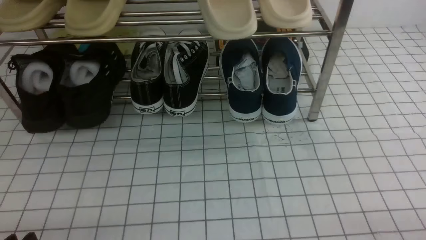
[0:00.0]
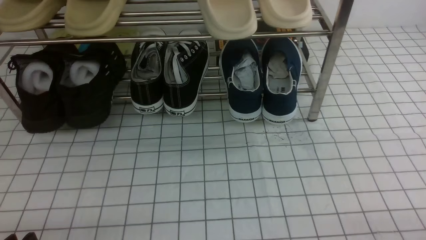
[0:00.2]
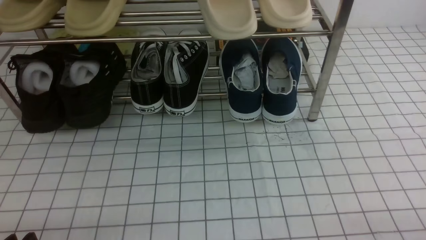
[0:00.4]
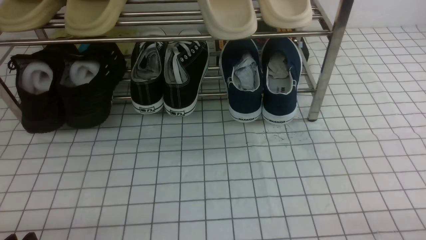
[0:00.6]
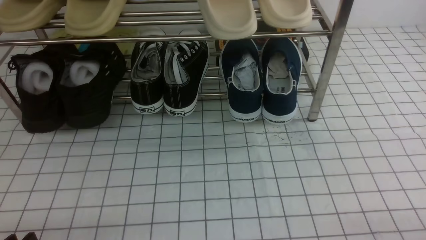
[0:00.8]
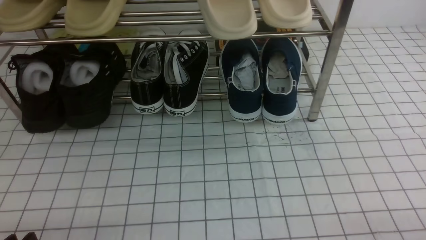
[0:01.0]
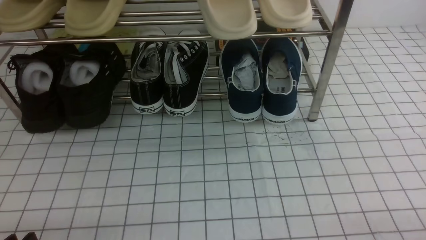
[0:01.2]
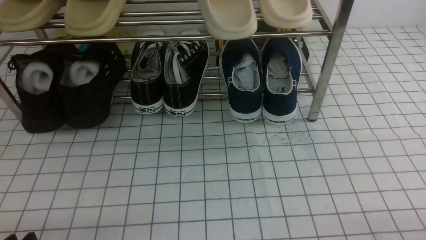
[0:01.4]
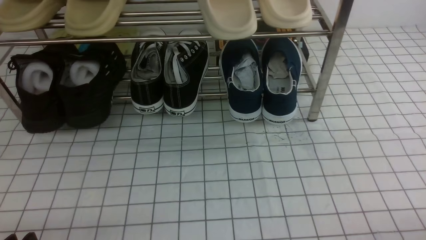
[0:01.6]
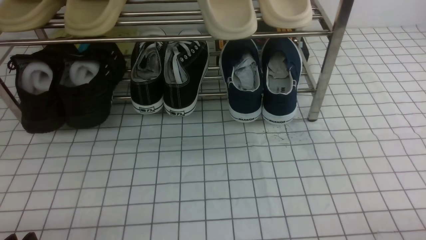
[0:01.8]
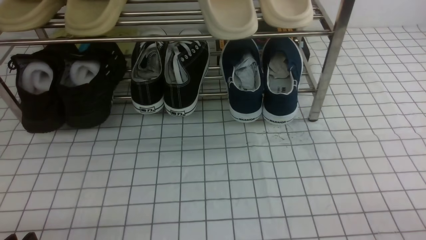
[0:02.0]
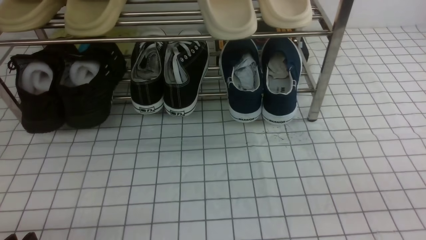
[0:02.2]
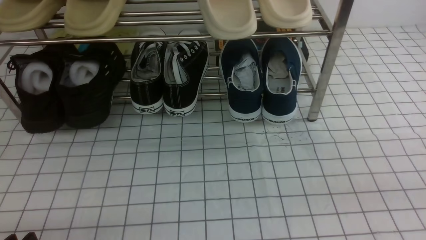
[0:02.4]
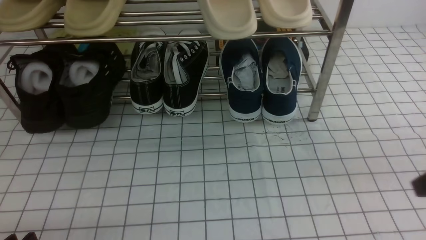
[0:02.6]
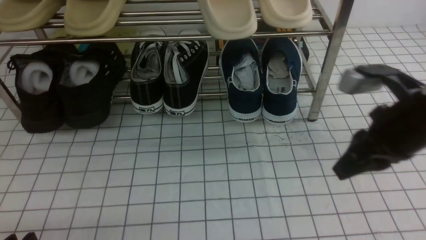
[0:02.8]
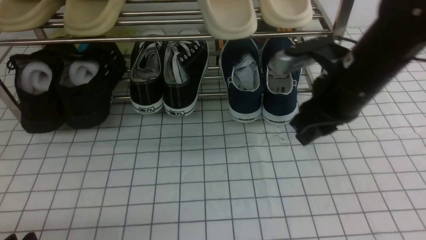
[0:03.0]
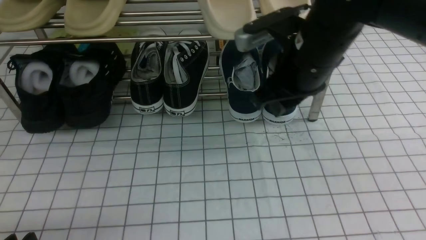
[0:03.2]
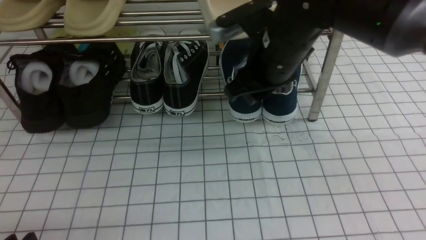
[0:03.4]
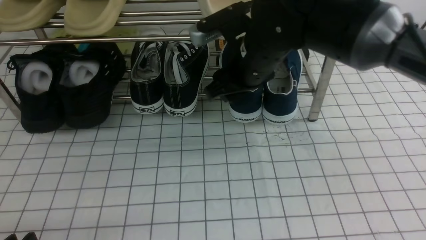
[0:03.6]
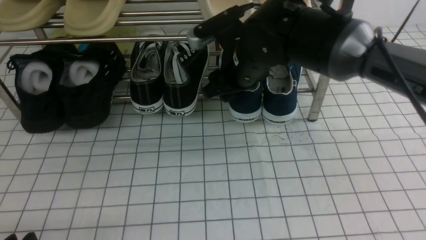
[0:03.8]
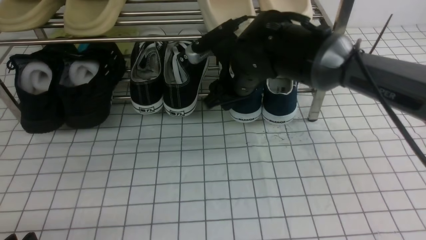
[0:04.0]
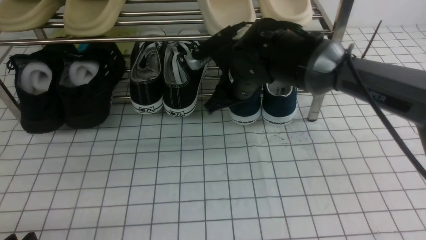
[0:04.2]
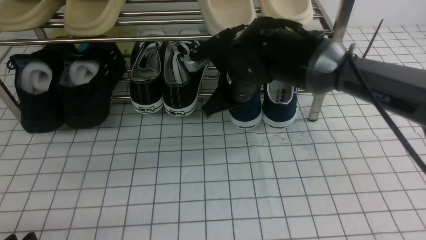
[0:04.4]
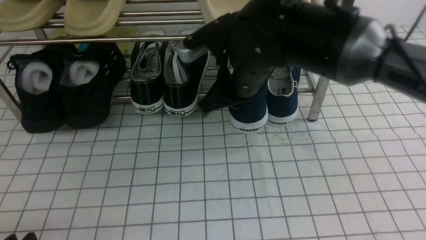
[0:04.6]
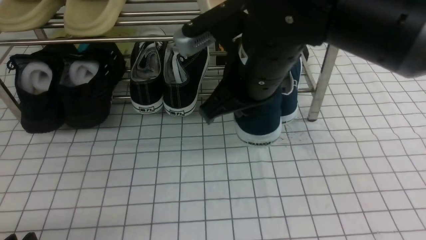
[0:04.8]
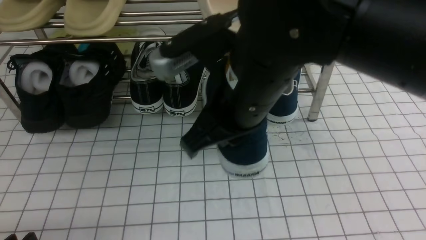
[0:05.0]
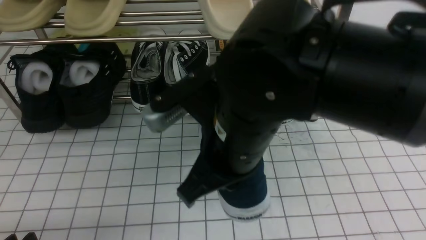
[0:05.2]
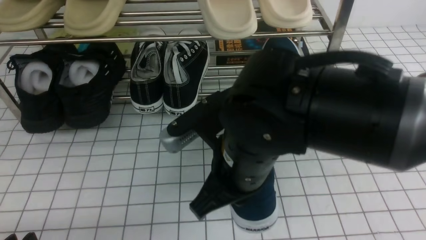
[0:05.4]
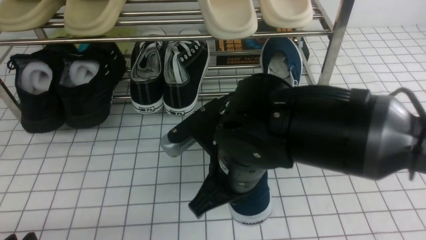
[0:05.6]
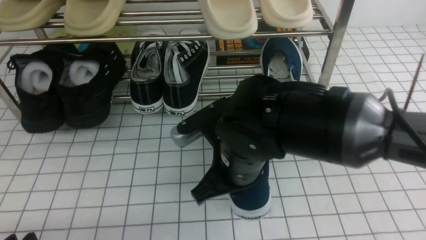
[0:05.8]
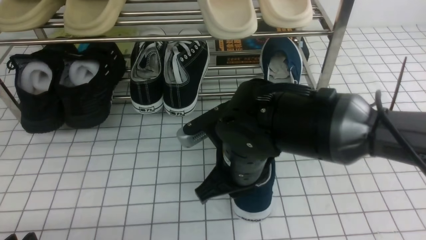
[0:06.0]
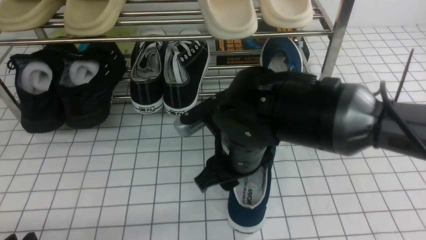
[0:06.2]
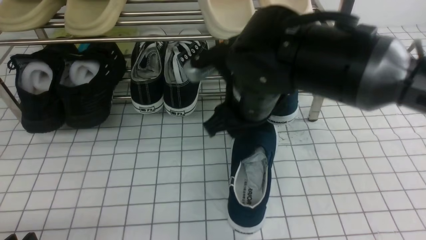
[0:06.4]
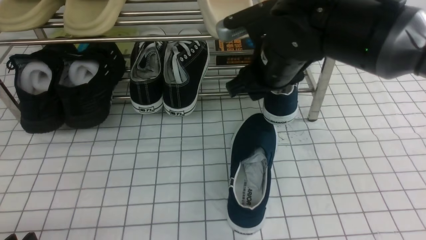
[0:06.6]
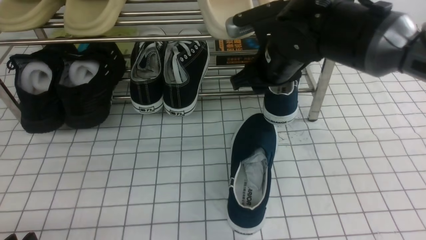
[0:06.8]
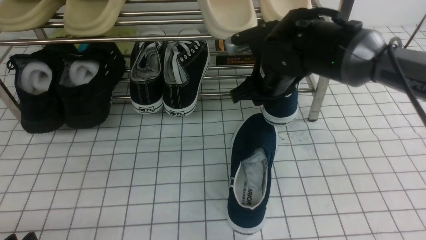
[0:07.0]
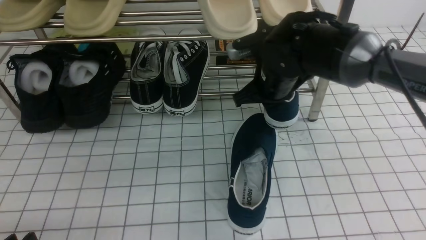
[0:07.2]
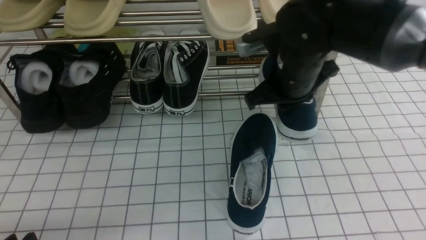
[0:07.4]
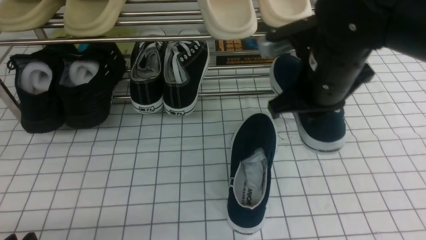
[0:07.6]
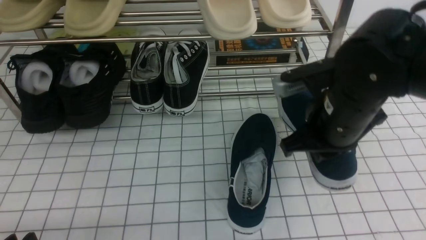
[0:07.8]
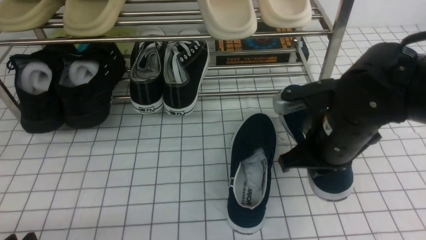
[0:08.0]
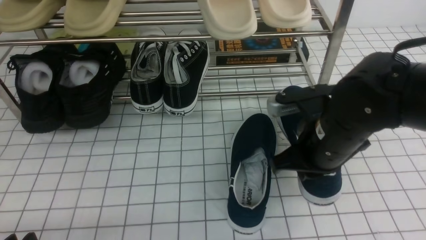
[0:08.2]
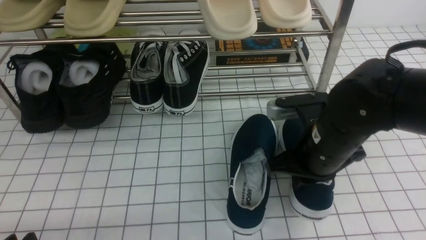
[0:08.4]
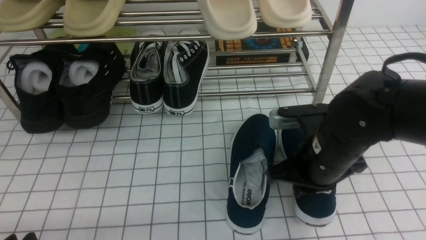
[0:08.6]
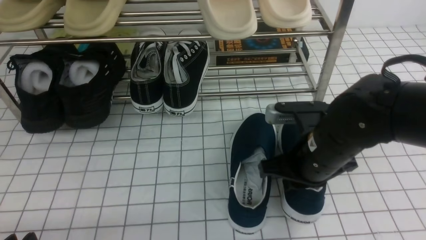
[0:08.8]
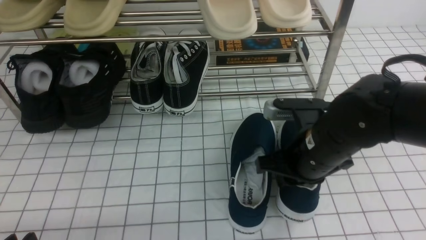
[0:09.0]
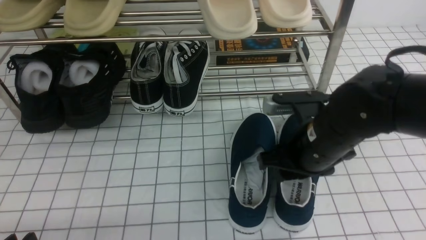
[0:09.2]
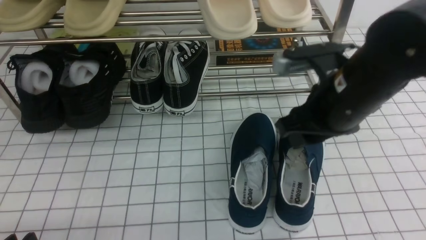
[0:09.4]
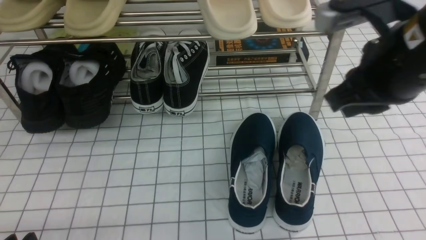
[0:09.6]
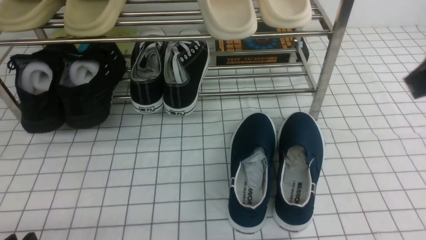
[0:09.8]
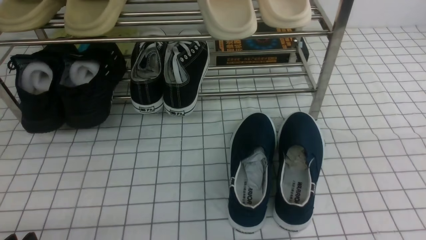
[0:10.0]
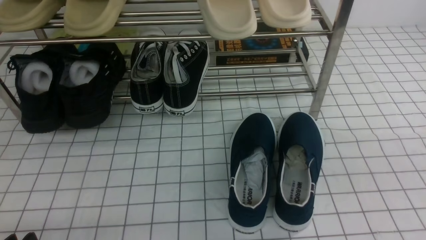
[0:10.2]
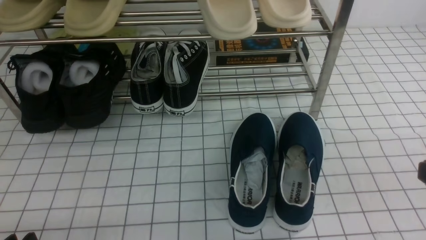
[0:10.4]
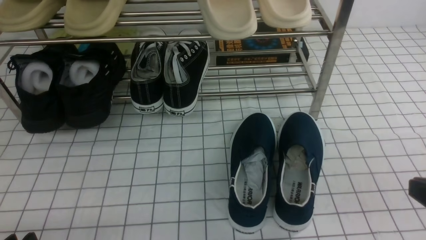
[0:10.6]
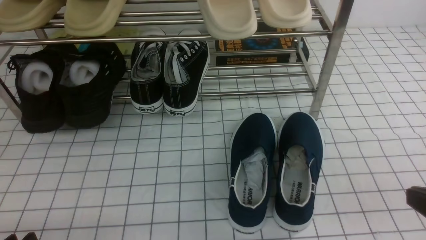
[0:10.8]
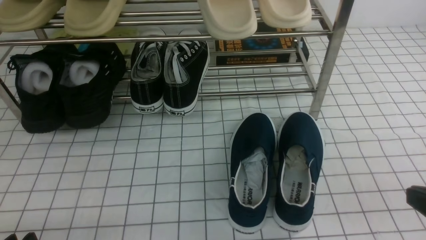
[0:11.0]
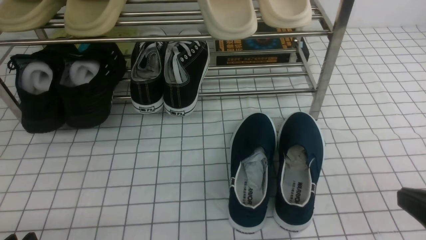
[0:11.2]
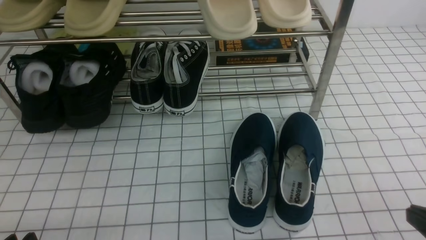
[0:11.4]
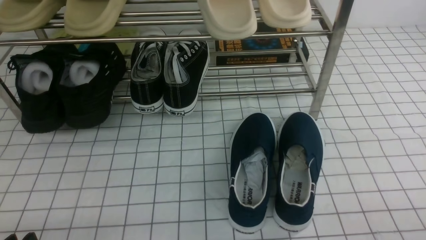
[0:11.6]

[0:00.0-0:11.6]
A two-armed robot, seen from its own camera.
Step, 0:00.0 to 0:04.2: use the right arm to clamp a shoe on the right side of the shoe rack.
Step, 0:04.4 to 0:06.2: use the right arm to take out the clamped shoe from the shoe rack and put it down.
Step, 0:06.6 to 0:07.0: use the right arm to clamp a shoe on the right side of the shoe rack.
Step, 0:07.2 to 0:09.2: use the right arm to take out the clamped shoe from the shoe rack and put it down.
0:01.4 to 0:02.8: The right gripper moves forward, upward and to the left, roughly 25 cm.
0:02.8 to 0:04.4: The right gripper is displaced to the left and forward by approximately 25 cm, and opens and closes again.
0:04.4 to 0:05.8: The right gripper goes about 15 cm backward.
0:05.8 to 0:07.2: The right gripper is displaced forward and to the right by some 15 cm, and opens, then closes again.
0:07.2 to 0:08.8: The right gripper moves backward, roughly 10 cm.
0:08.8 to 0:10.2: The right gripper goes roughly 25 cm upward, backward and to the right, and opens, then closes again.

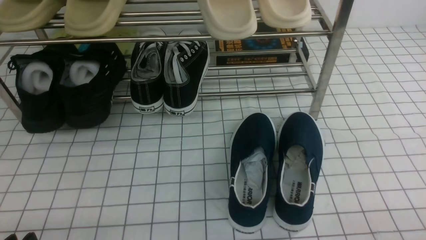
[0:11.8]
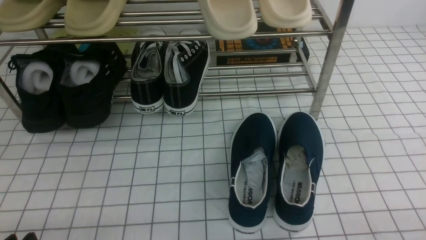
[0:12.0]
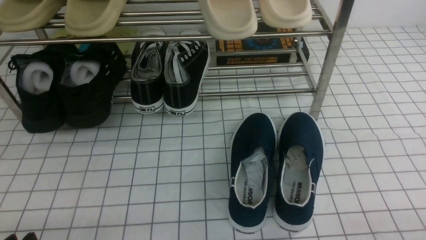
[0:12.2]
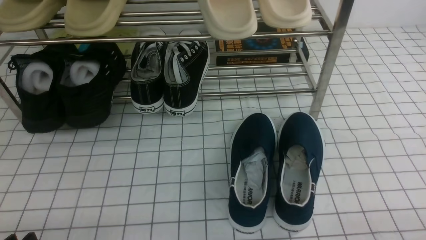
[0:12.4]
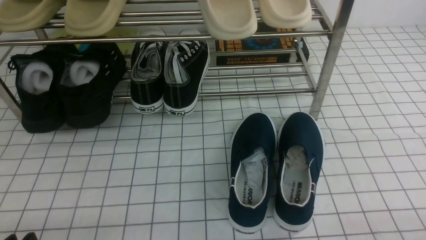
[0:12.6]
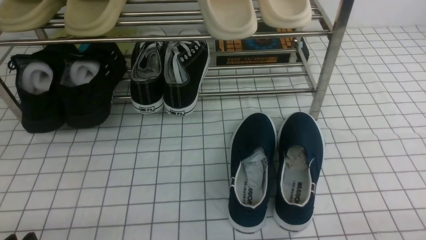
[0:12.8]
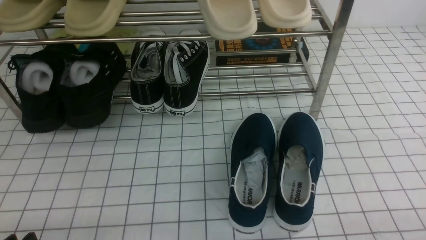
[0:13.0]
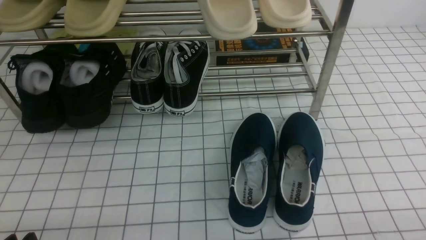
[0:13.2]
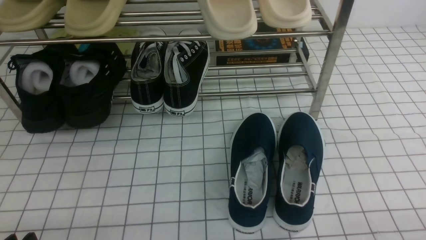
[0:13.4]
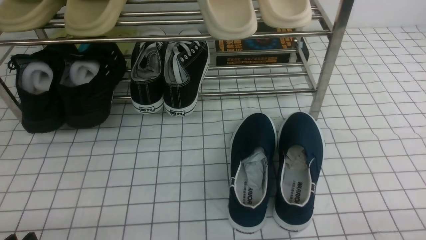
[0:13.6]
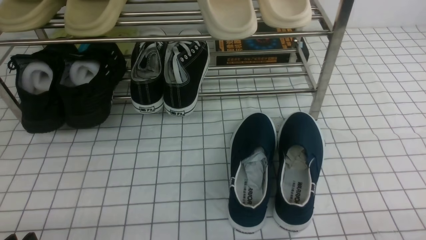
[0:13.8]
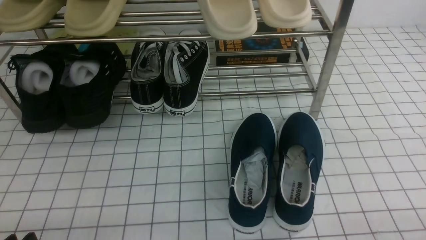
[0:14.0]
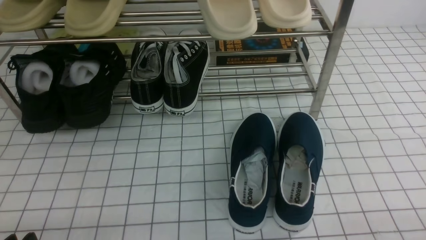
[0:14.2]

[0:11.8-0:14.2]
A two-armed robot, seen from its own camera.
0:13.0 to 0:14.2: Both grippers stay put.
